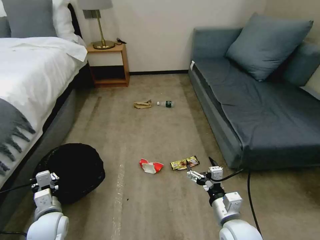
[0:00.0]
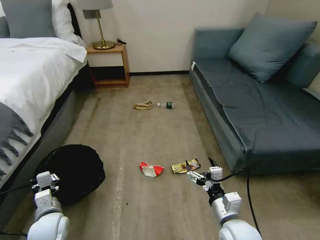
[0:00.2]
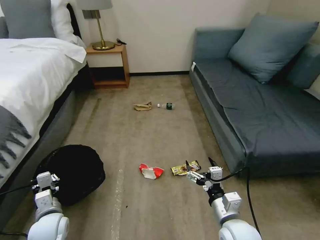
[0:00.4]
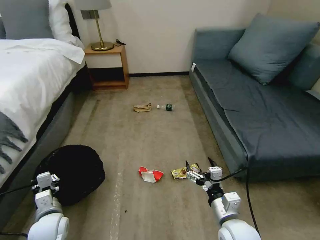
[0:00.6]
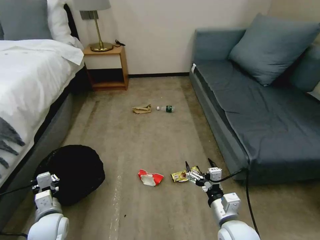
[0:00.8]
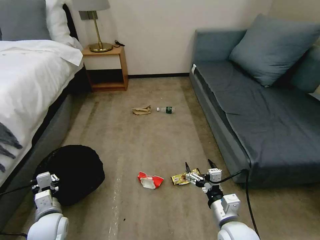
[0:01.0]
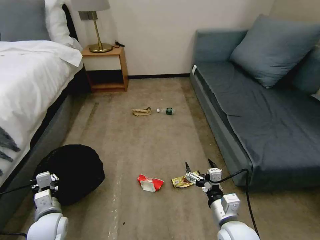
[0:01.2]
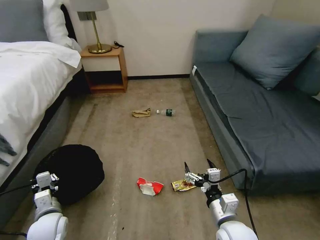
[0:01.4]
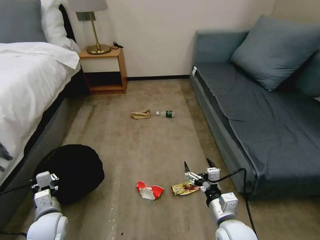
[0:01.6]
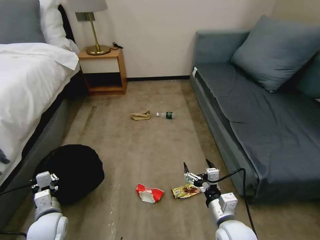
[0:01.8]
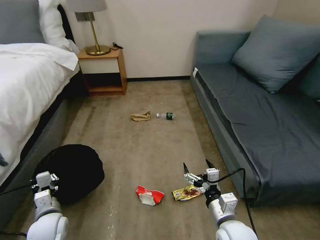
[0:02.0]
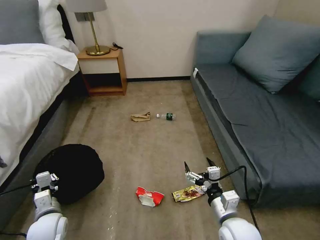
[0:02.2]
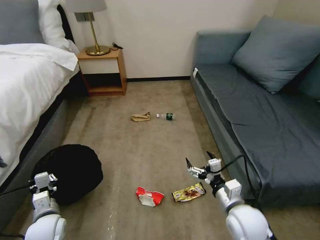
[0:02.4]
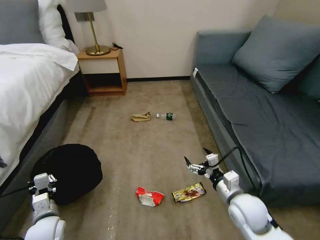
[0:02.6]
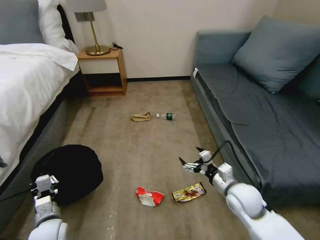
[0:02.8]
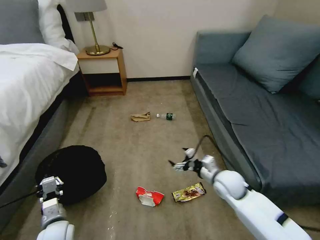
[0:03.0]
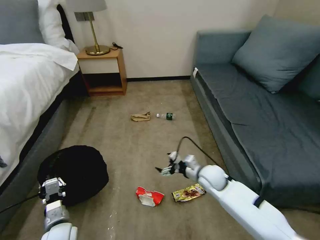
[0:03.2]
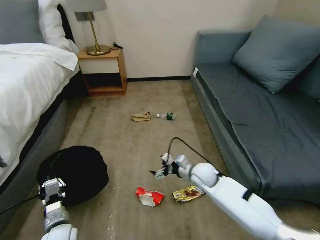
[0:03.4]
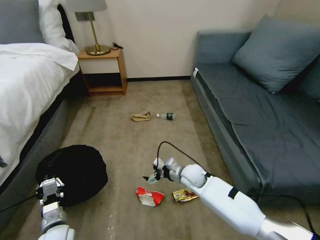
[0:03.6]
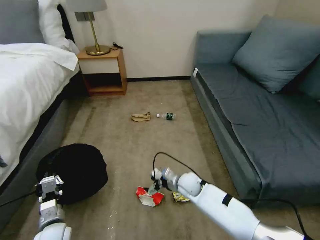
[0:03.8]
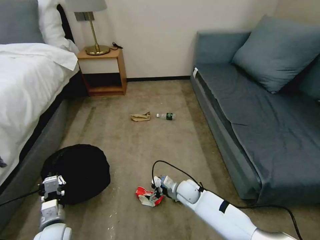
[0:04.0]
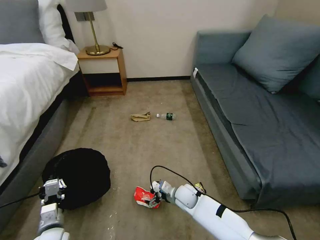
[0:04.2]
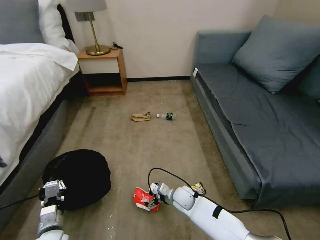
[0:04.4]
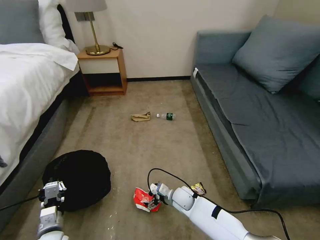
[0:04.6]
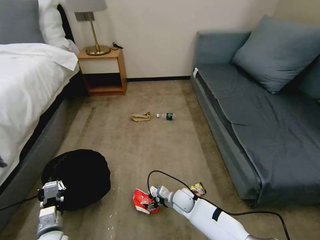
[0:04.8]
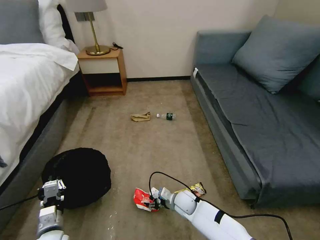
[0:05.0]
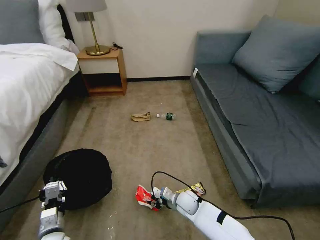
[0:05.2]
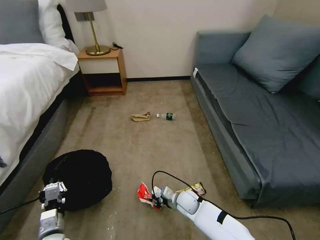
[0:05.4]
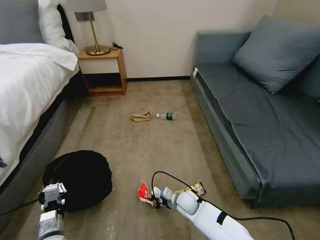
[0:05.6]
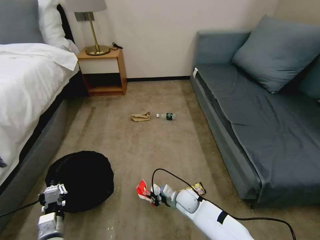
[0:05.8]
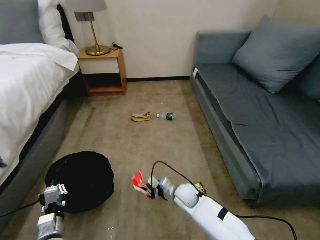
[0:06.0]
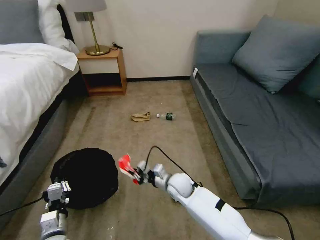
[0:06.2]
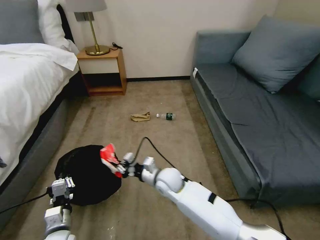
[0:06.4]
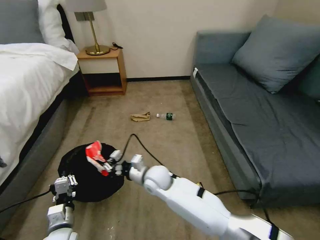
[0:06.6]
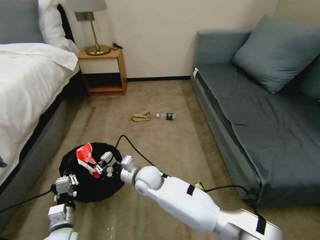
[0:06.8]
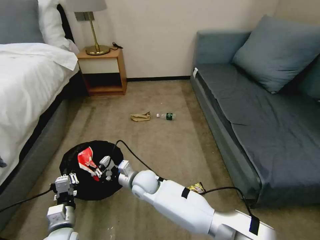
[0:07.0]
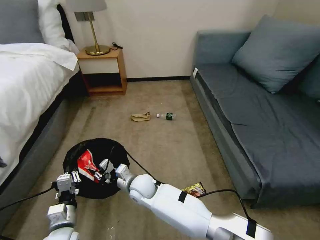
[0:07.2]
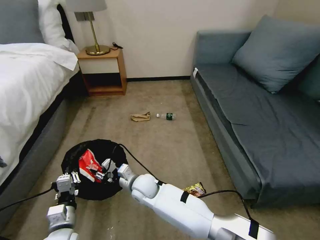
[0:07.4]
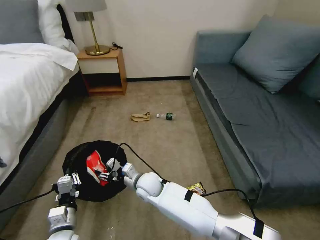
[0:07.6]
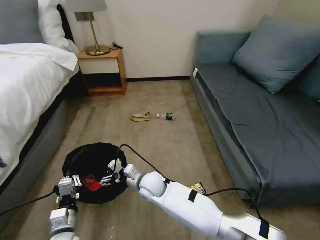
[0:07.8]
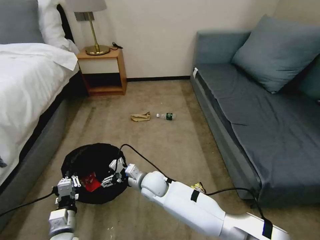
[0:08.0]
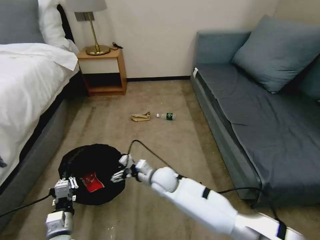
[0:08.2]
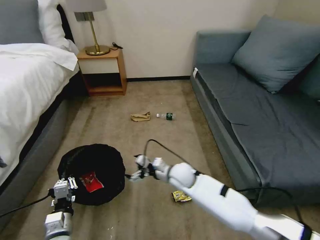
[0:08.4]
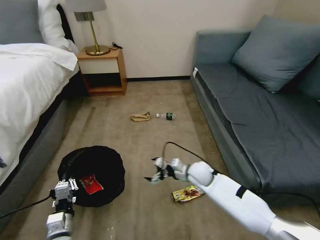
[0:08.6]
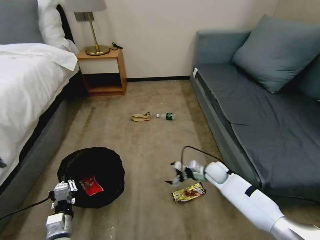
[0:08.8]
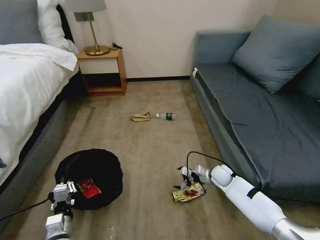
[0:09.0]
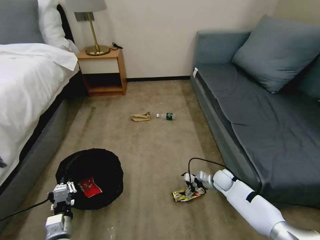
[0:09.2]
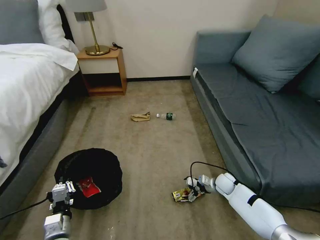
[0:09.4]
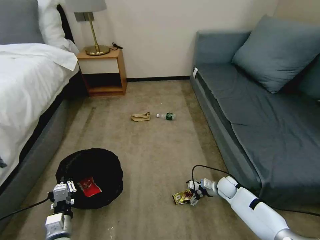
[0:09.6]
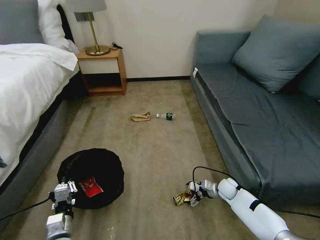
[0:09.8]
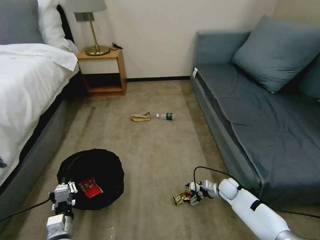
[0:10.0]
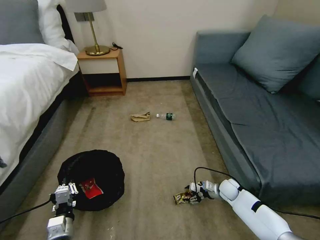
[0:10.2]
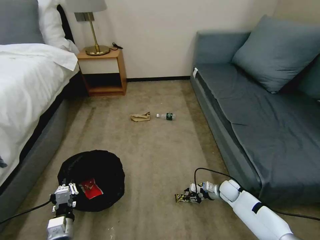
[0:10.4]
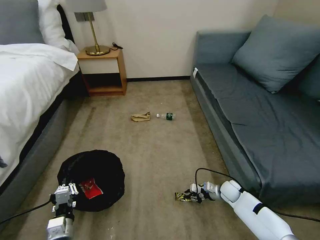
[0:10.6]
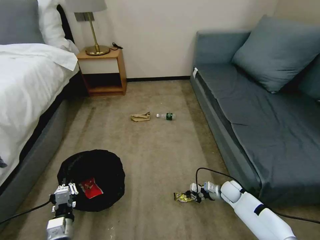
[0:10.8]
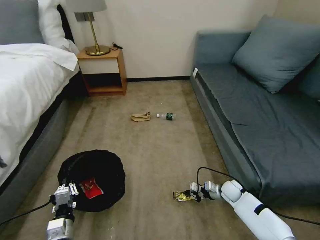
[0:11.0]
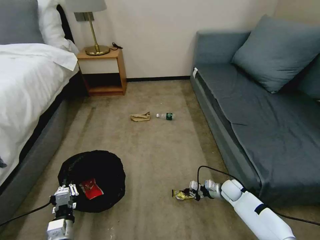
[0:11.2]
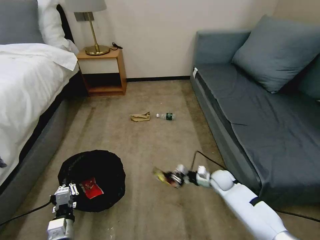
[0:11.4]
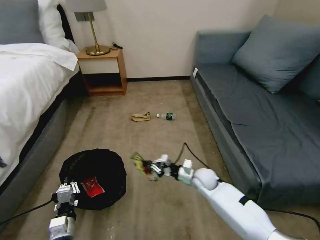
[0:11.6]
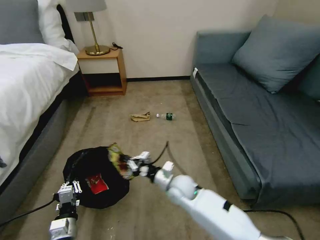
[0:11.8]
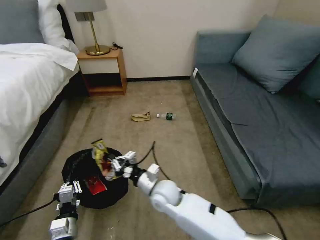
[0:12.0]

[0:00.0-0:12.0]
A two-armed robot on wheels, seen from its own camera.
Task of the whole recording: Pick up the trash bin, then pick up the garbage on the floor and place it into the trash bin.
0:01.6 to 0:03.0: The right gripper moves forward, approximately 15 cm.
0:03.0 to 0:04.4: The right gripper shifts roughly 20 cm downward and to the left.
0:04.4 to 0:06.0: The right gripper closes its fingers.
0:06.0 to 0:07.6: The right gripper heads to the left and upward, covering about 15 cm, and opens its fingers.
0:07.6 to 0:09.0: The right gripper moves to the right, some 35 cm, and opens its fingers.
0:09.0 to 0:10.4: The right gripper moves downward, about 5 cm, and closes its fingers.
0:10.4 to 0:12.0: The right gripper shifts roughly 35 cm to the left and upward, and closes its fingers.

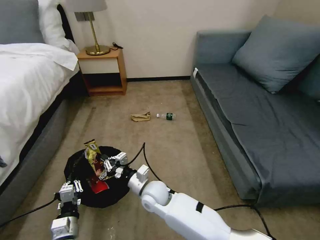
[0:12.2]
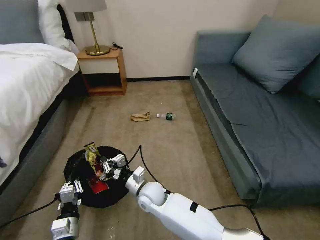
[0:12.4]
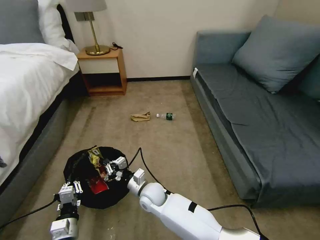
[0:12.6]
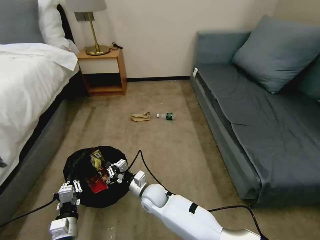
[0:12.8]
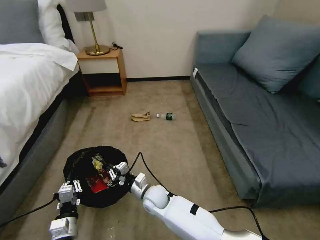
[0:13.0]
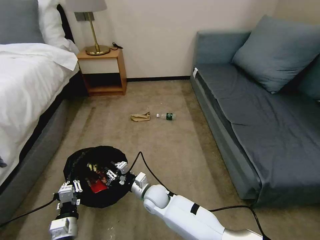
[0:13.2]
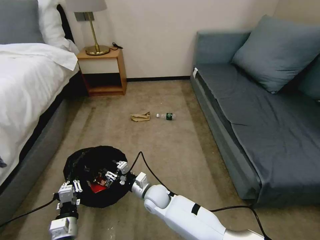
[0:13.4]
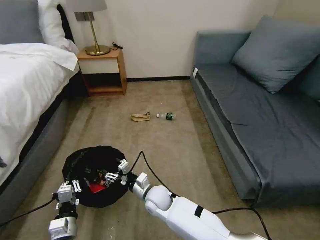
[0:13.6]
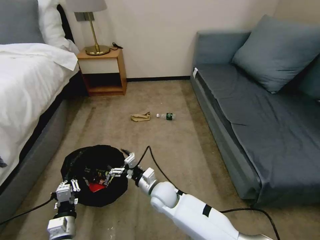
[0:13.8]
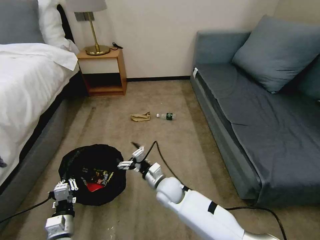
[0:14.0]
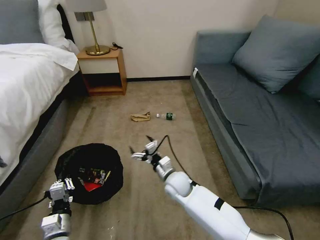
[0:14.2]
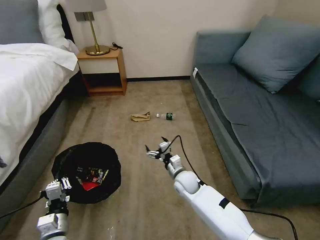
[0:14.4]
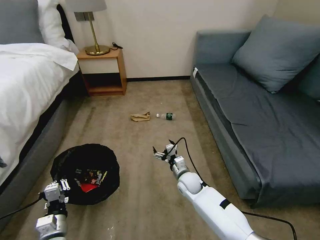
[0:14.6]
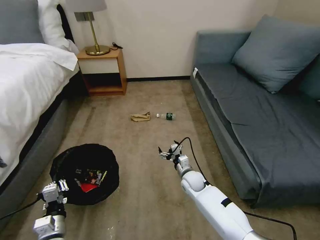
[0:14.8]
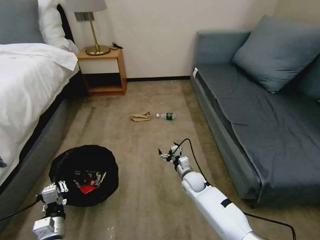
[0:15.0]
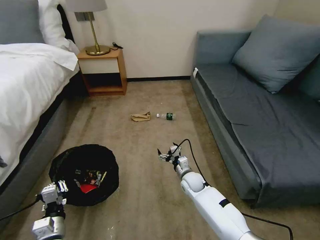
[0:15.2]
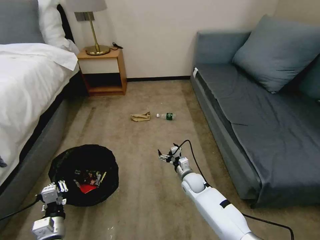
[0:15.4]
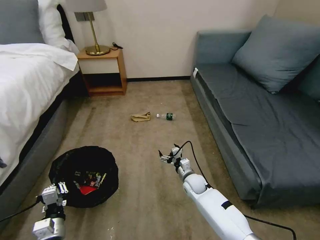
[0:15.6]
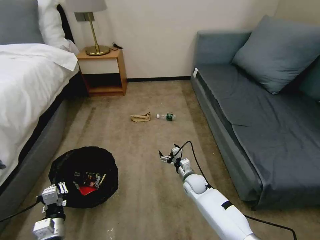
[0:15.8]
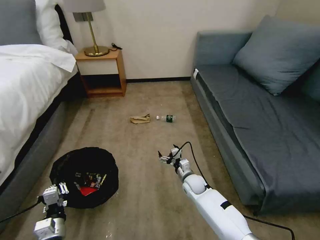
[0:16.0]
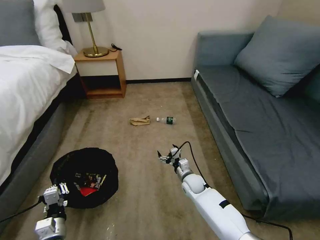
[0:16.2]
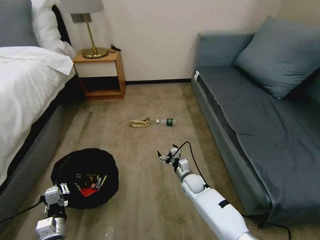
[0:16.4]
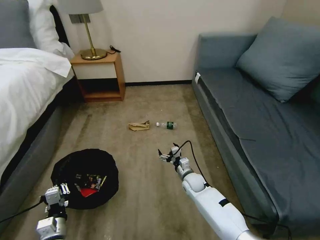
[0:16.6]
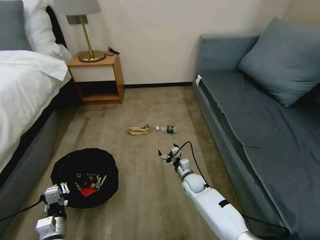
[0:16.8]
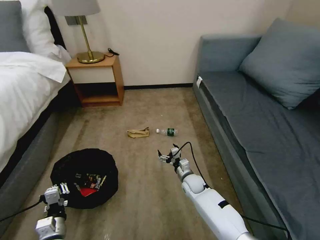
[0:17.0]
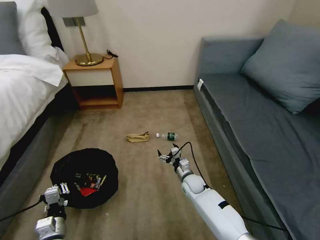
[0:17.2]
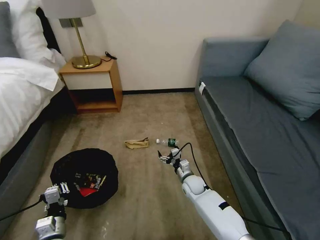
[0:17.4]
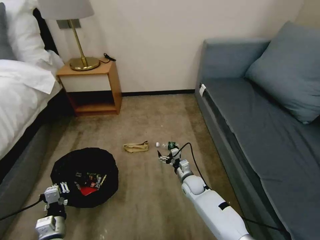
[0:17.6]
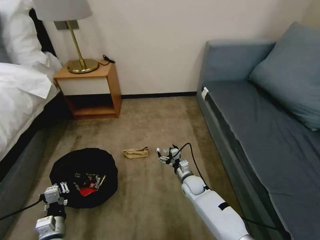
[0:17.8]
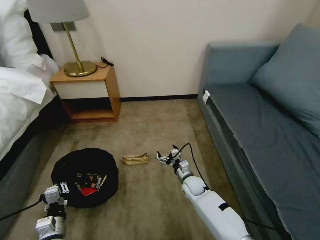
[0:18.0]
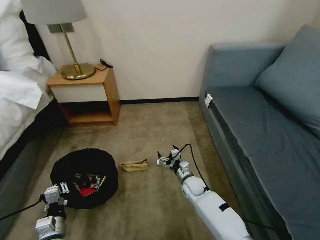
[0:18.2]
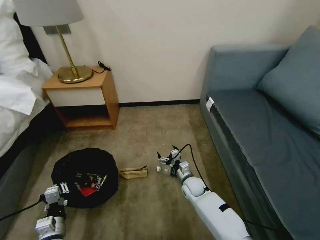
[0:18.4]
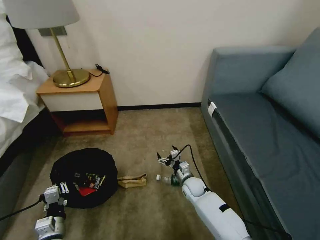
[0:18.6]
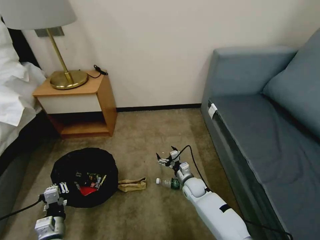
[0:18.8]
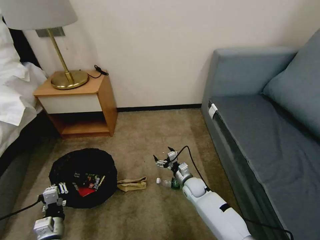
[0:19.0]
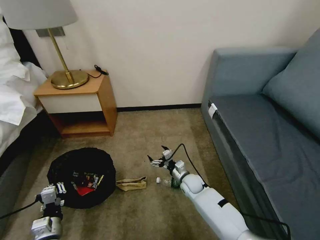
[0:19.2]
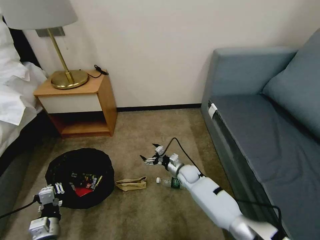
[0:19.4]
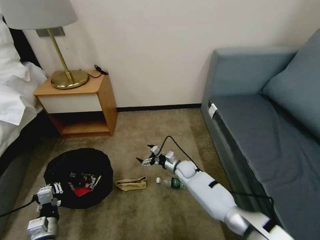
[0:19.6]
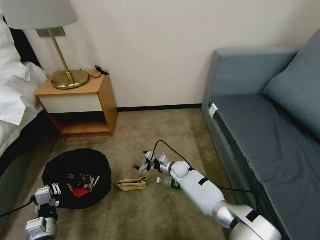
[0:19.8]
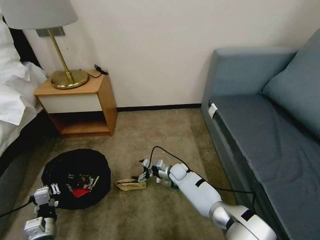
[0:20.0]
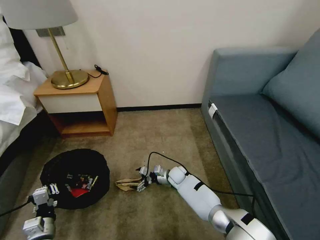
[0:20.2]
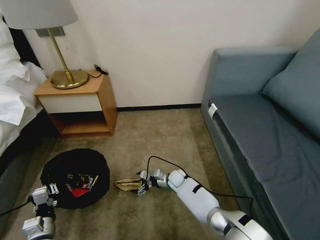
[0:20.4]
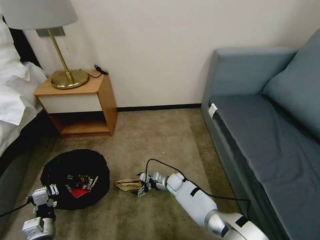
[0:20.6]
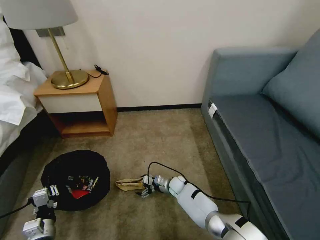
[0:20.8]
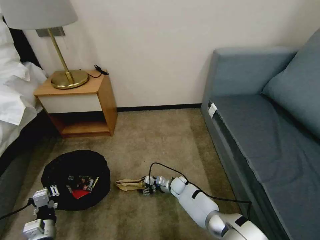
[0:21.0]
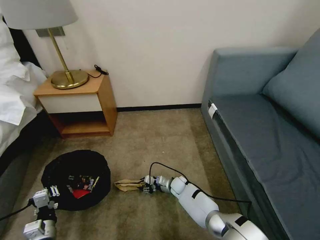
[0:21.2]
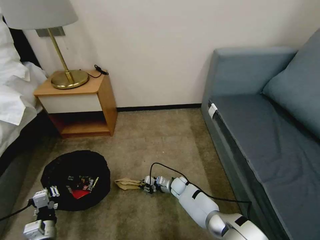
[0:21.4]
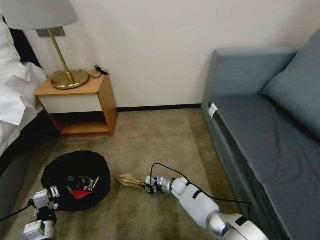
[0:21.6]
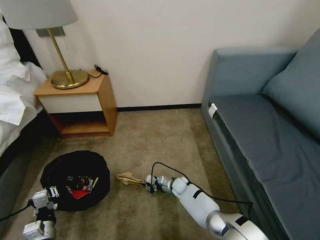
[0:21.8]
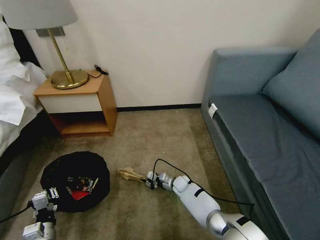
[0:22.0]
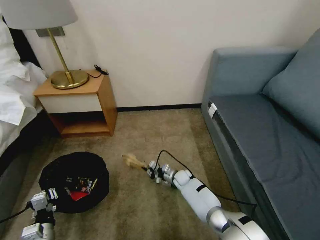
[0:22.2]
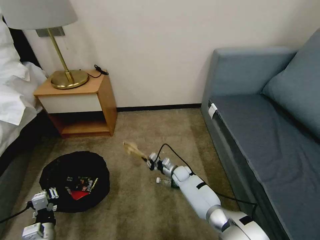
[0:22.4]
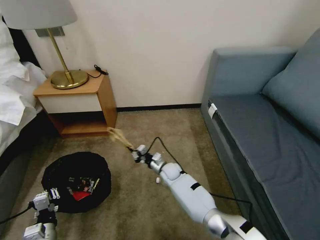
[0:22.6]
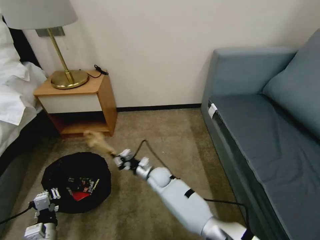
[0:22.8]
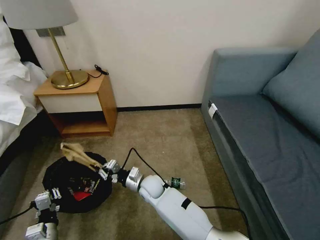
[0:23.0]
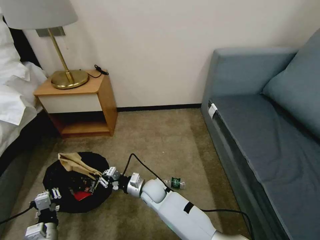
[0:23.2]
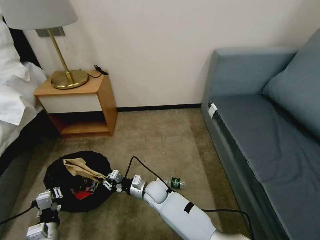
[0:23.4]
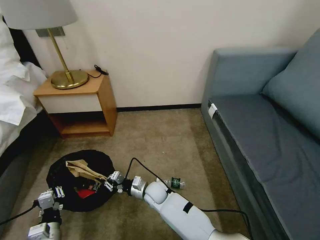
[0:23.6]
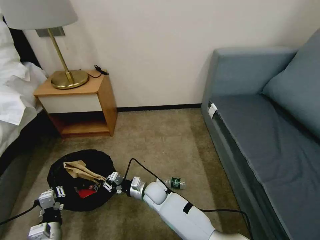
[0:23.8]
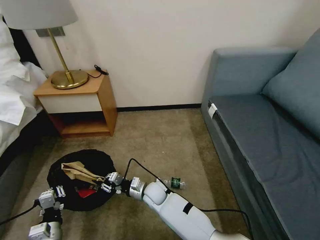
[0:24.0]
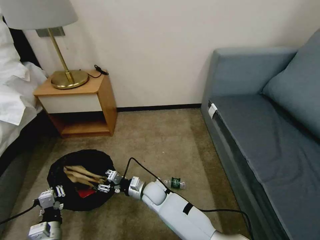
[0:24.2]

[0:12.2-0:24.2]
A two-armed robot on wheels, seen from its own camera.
Task of the whole recording: Pick up the trash bin, then pick up the garbage on the floor and place it into the trash bin.
0:12.2 to 0:13.8: The right gripper opens its fingers.
0:13.8 to 0:15.2: The right gripper shifts some 15 cm to the right, forward and downward.
0:18.2 to 0:19.8: The right gripper goes about 10 cm forward.
0:19.8 to 0:21.2: The right gripper goes about 5 cm downward, and closes.
0:21.2 to 0:22.6: The right gripper travels upward by some 10 cm, and closes.
0:22.6 to 0:24.2: The right gripper is displaced backward and to the left by roughly 15 cm, and opens its fingers.
